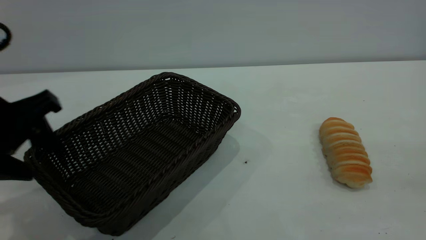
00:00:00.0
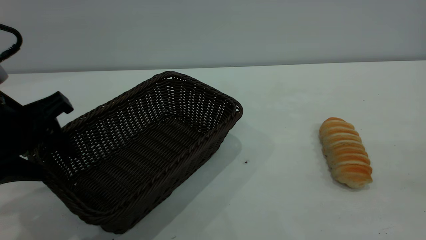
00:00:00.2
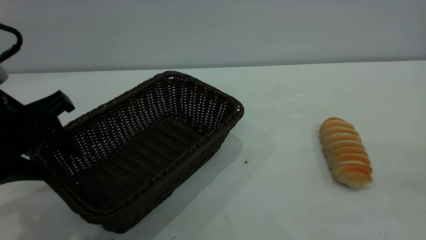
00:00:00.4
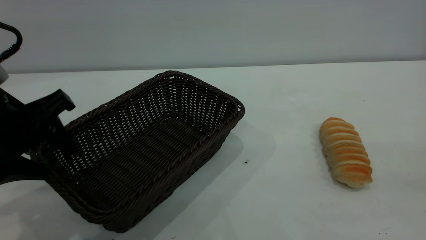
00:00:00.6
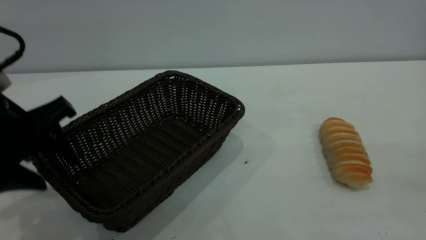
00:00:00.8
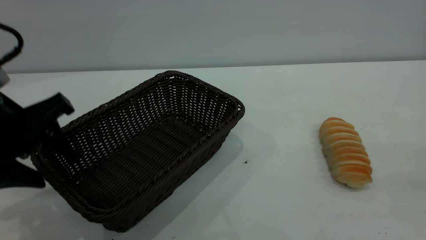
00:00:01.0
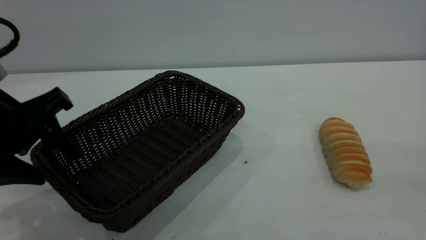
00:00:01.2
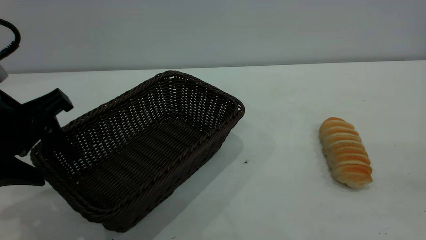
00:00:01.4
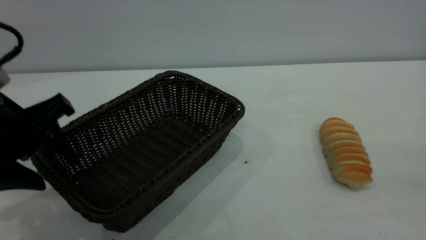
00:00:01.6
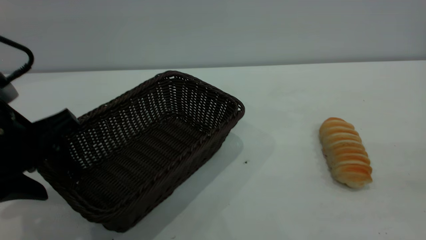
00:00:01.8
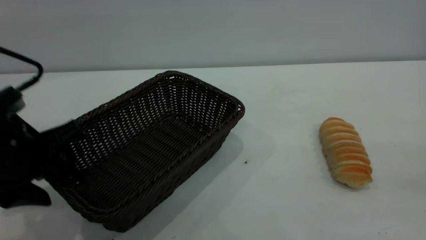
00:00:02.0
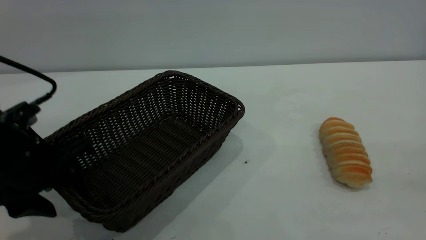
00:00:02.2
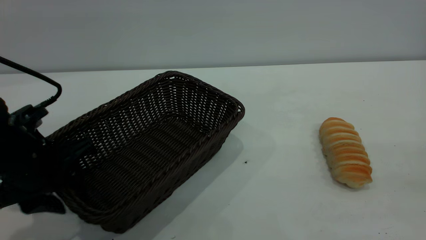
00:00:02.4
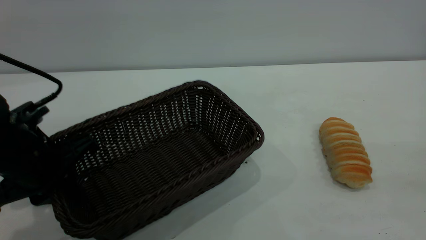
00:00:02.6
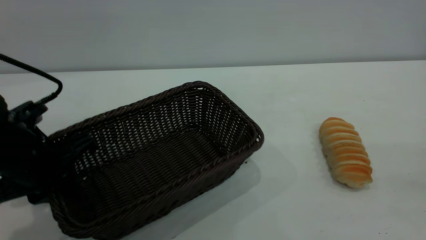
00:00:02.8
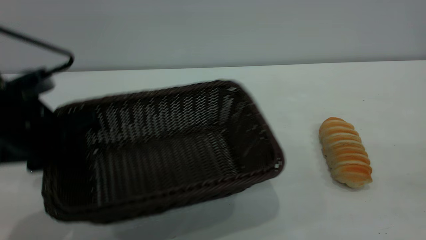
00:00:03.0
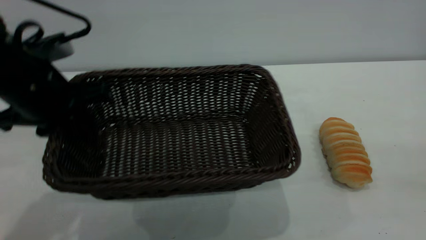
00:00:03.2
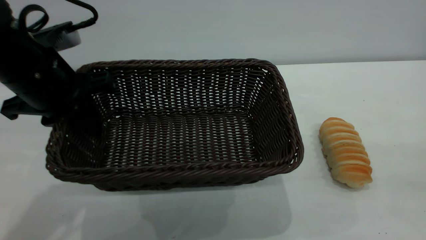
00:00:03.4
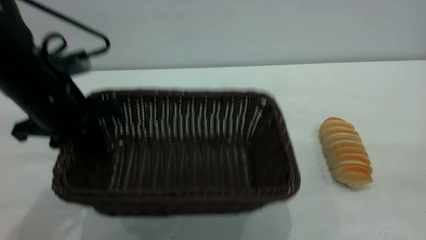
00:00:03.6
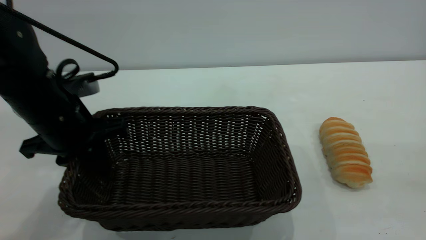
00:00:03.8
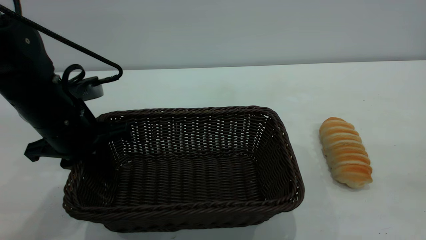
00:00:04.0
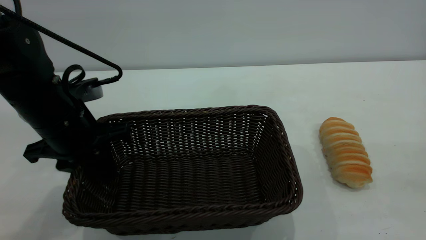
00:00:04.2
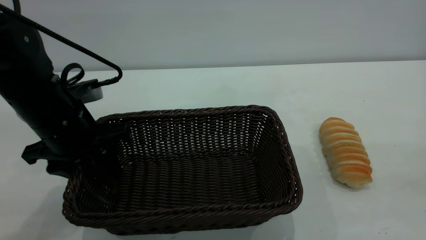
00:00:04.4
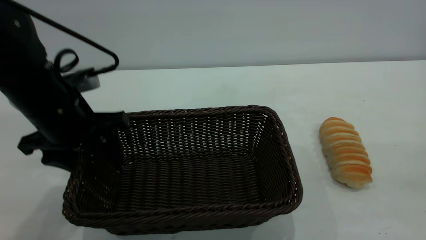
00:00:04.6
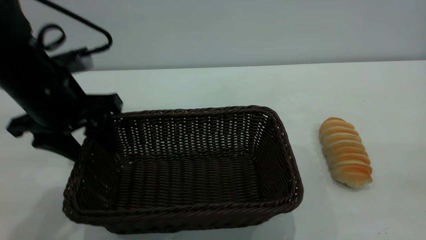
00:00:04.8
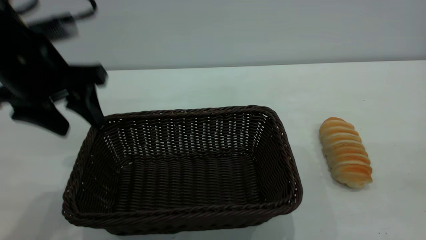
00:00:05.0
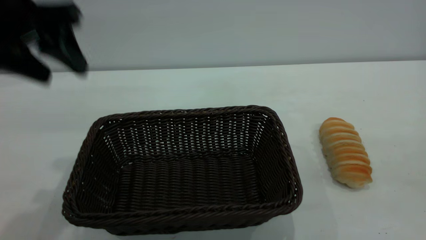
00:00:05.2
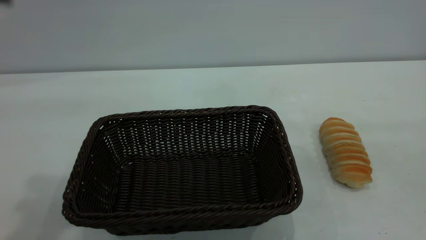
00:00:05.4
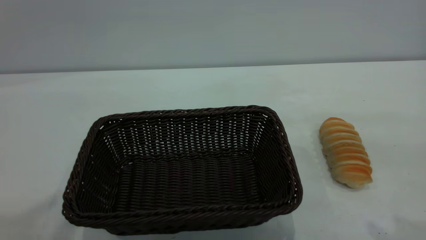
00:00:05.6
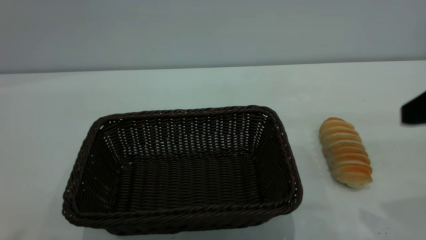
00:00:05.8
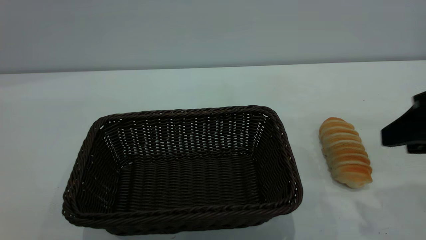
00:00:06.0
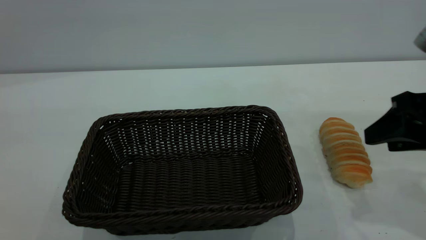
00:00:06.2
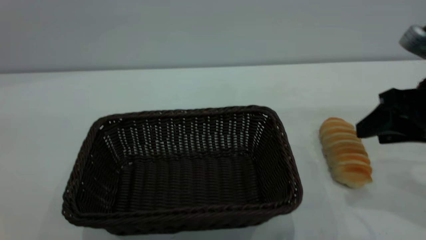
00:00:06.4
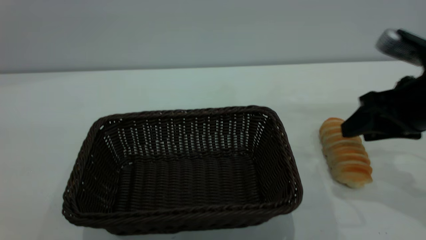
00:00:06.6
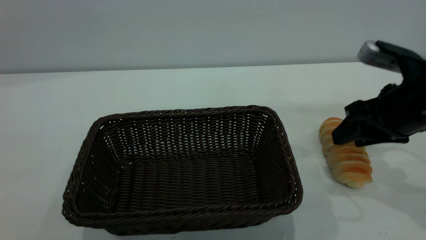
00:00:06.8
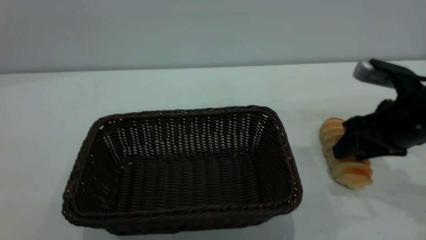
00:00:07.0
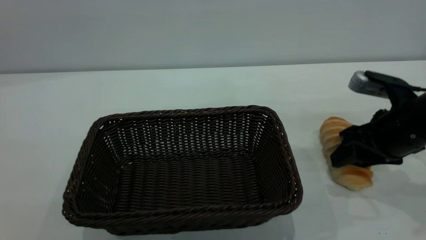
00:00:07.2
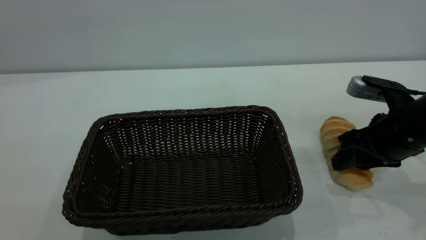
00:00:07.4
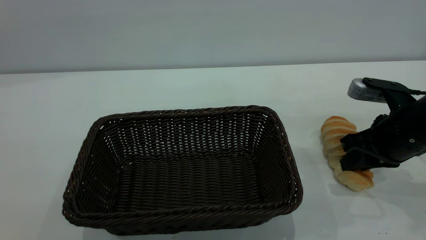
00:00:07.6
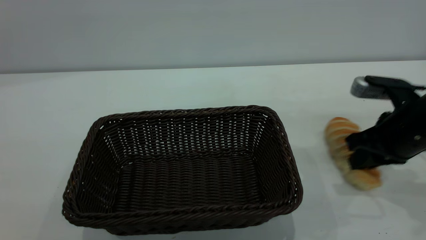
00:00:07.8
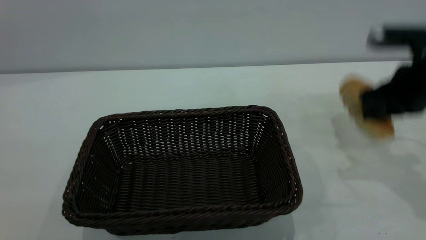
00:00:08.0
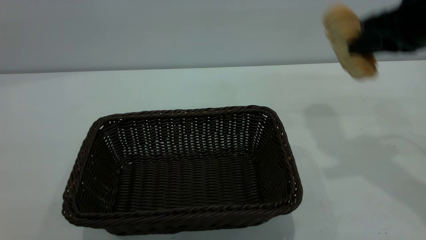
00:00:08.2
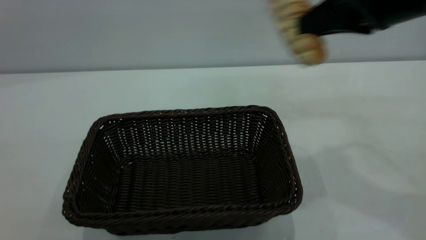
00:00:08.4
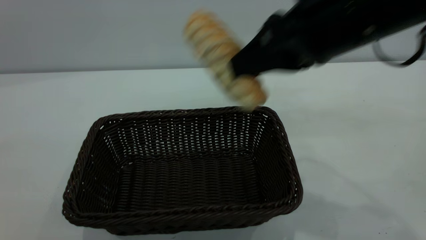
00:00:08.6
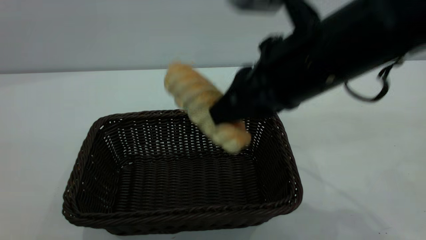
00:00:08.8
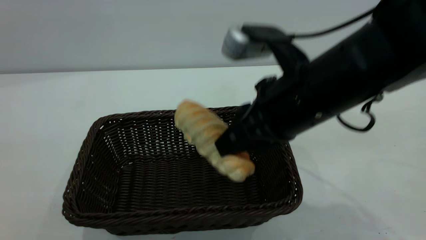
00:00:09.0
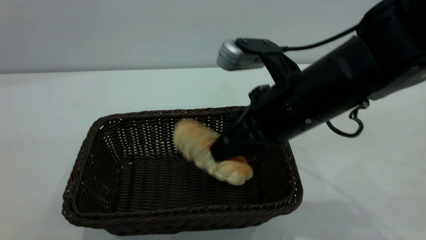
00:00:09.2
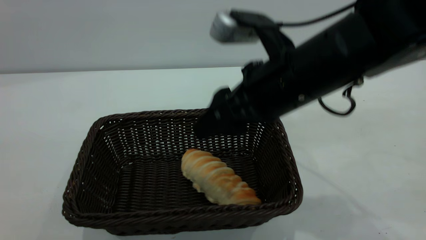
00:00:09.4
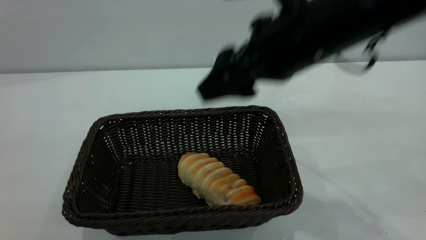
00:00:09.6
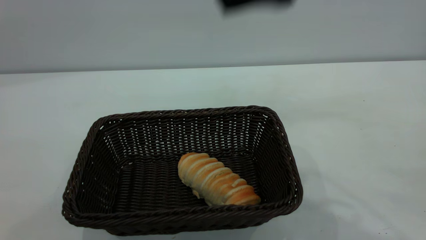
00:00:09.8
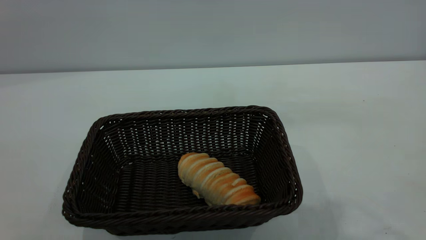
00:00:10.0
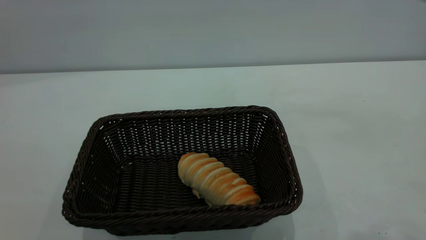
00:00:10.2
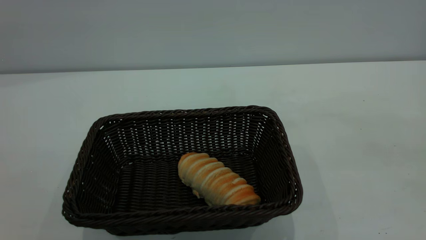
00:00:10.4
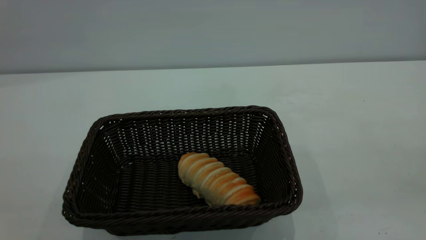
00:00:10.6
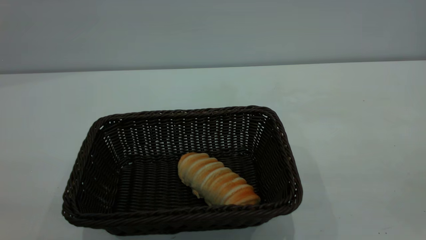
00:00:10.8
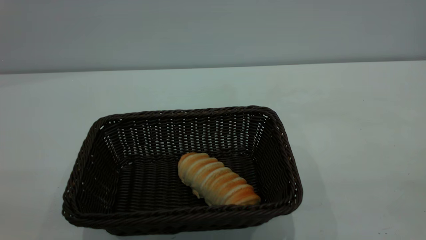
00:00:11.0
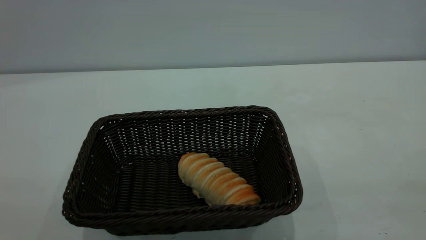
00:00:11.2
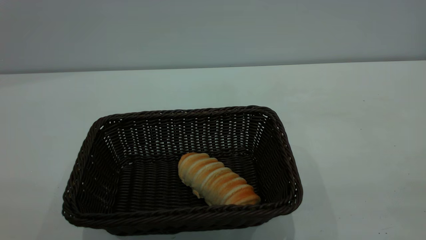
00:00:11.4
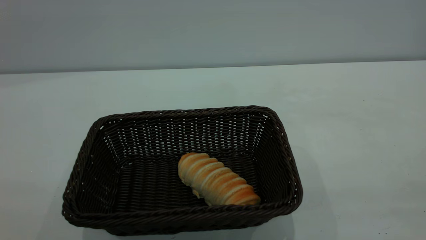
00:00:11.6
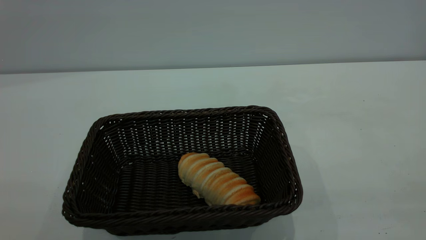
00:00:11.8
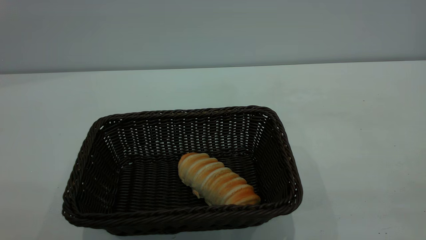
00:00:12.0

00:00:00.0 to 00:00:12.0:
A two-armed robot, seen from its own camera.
Task of the whole recording: One hand grasps the black basket and places it in the middle of the table, while the other hand picks up the long bread and puts it into the black basket.
Step, 00:00:00.0 to 00:00:05.0: Move the basket to the center of view.
Step, 00:00:08.2 to 00:00:09.6: place the bread into the basket.
00:00:00.0 to 00:00:01.6: The grippers stay close to where they were, moving slightly.
00:00:01.6 to 00:00:03.0: The left gripper closes.
00:00:03.0 to 00:00:04.4: The left gripper ends up roughly 5 cm from where it was, and opens up.
00:00:04.4 to 00:00:06.0: The right gripper goes approximately 25 cm forward and downward; the left gripper goes roughly 40 cm upward and backward.
00:00:06.0 to 00:00:07.6: The right gripper shifts roughly 15 cm downward and forward, and closes.
00:00:07.6 to 00:00:09.0: The right gripper heads to the left and upward, covering about 20 cm.
00:00:09.0 to 00:00:10.4: The right gripper travels upward, backward and to the right by about 30 cm, and opens its fingers.
